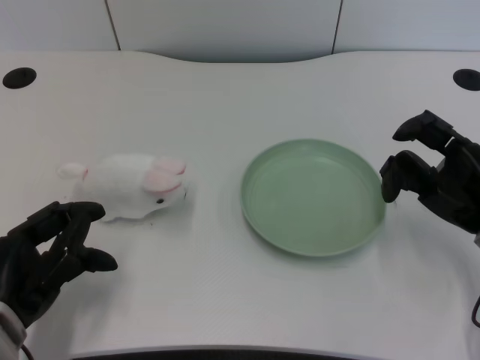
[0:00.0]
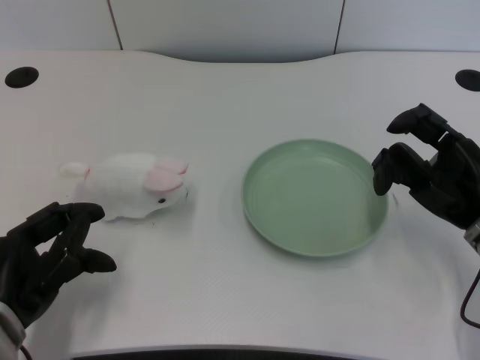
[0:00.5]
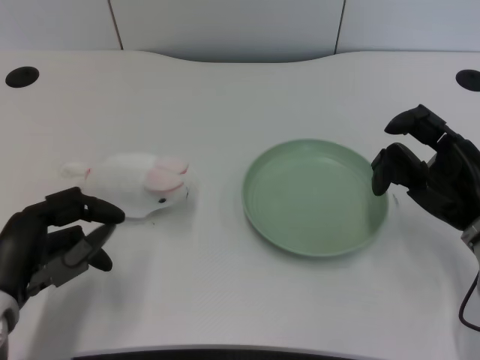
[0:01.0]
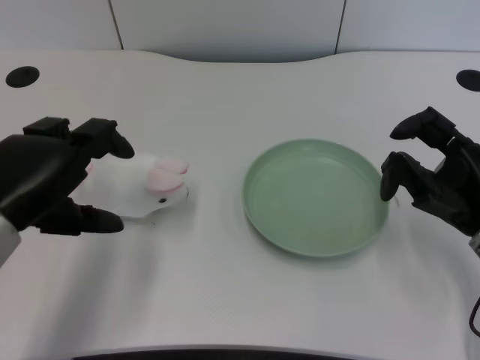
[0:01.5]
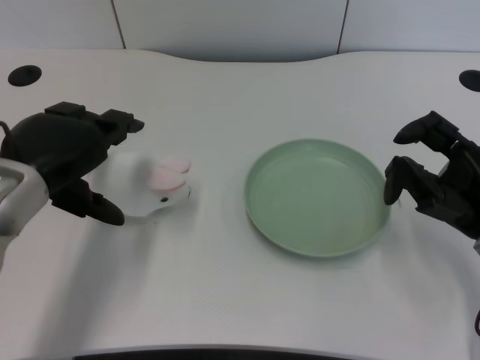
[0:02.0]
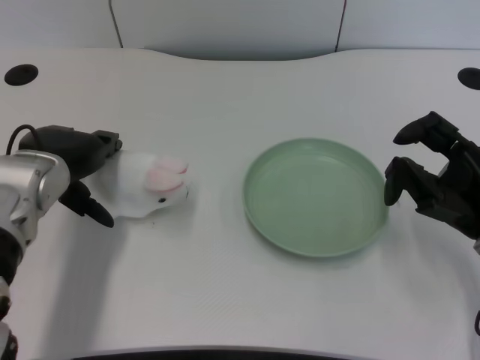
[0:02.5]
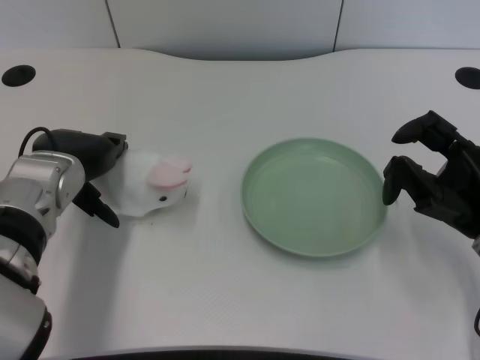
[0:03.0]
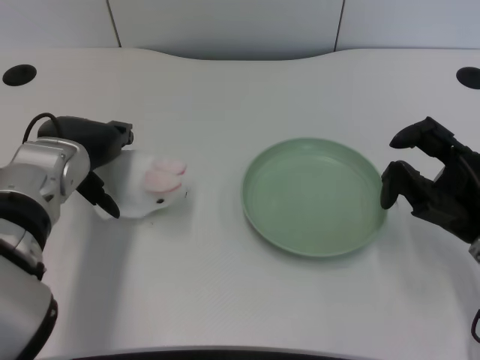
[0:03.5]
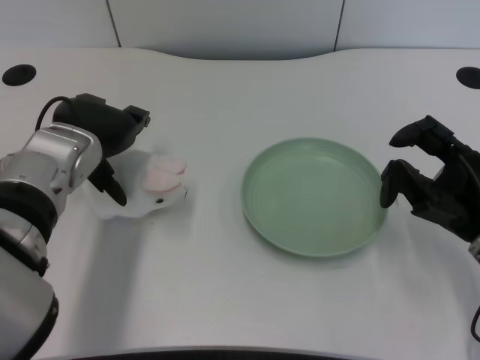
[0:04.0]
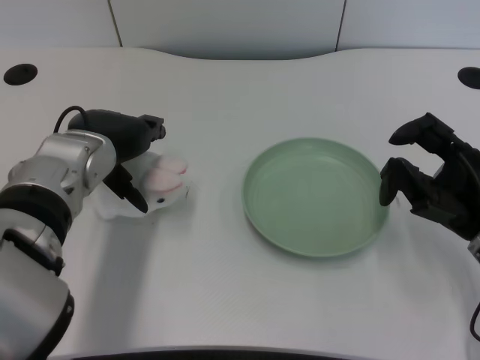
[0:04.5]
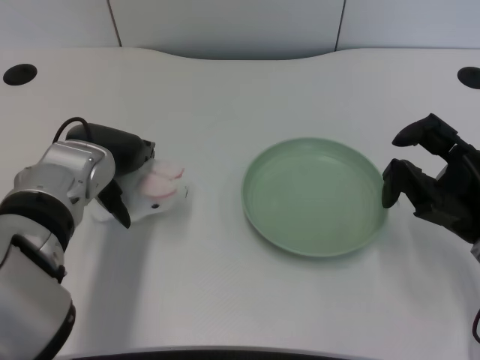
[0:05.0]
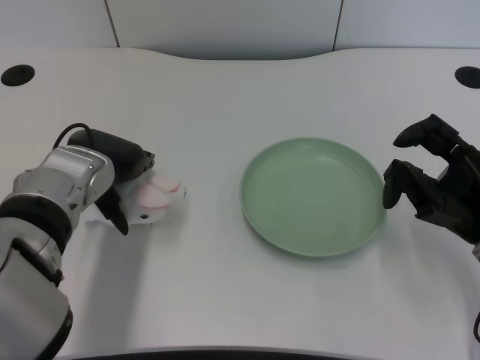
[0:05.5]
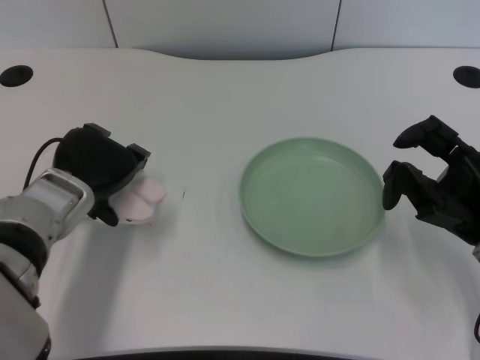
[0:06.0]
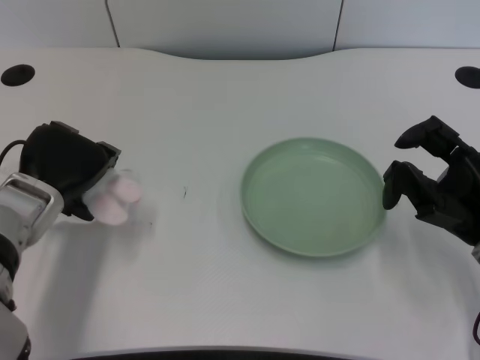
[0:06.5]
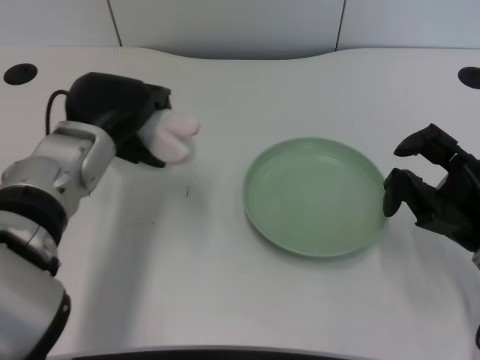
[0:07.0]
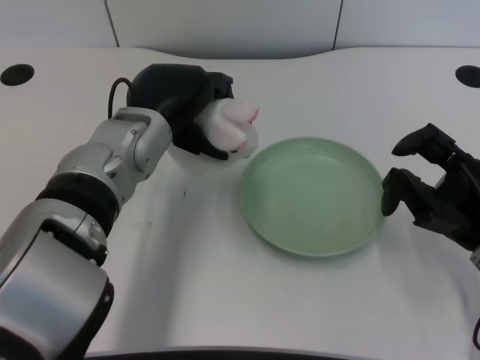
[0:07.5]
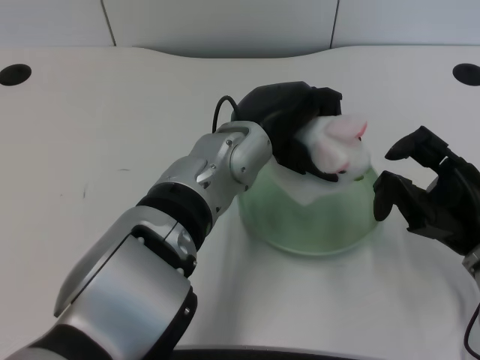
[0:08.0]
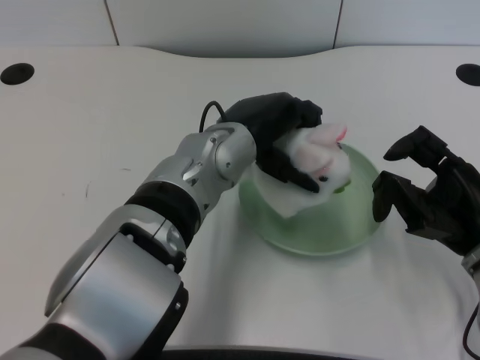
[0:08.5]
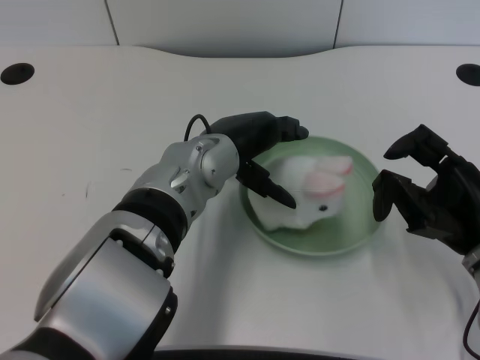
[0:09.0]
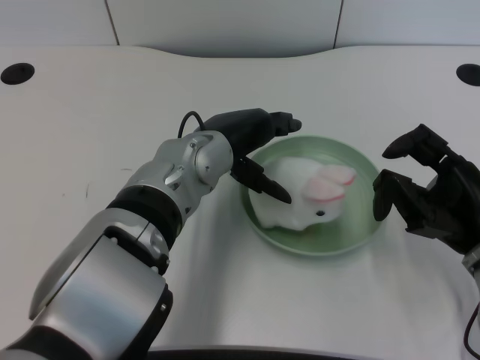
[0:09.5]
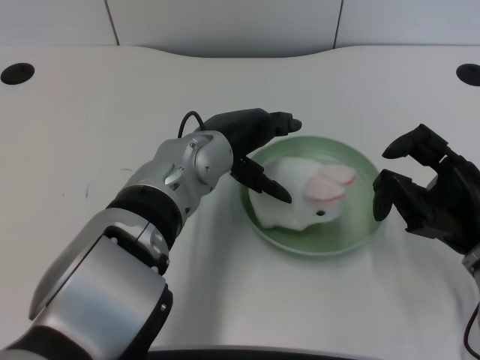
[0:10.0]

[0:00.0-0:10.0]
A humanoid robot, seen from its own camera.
Task of the whole recording: pick up the rabbit doll from the table and place it on the plate.
Step, 0:01.0 to 0:06.5: Grasp the rabbit doll with the left gripper.
Step, 0:07.0 to 0:09.0: Place the rabbit doll into the plate with the left gripper.
0:02.0 to 0:04.0: The left hand shifts about 5 cm forward.
0:04.0 to 0:06.0: The left hand changes place by roughly 5 cm.
0:06.0 to 0:08.0: The left hand heads to the right, covering approximately 15 cm.

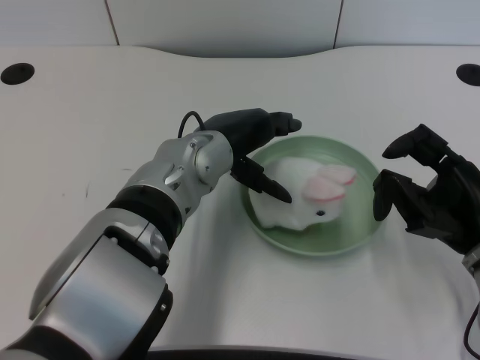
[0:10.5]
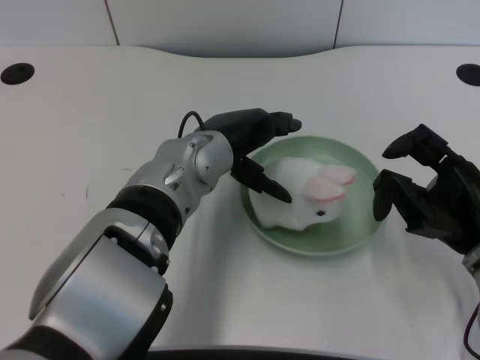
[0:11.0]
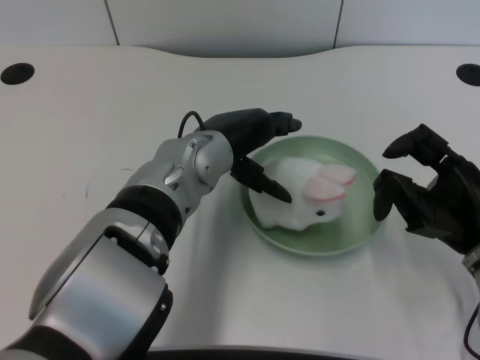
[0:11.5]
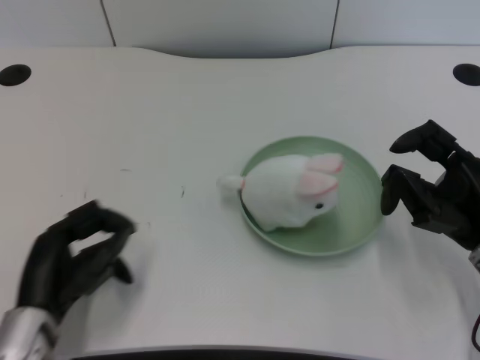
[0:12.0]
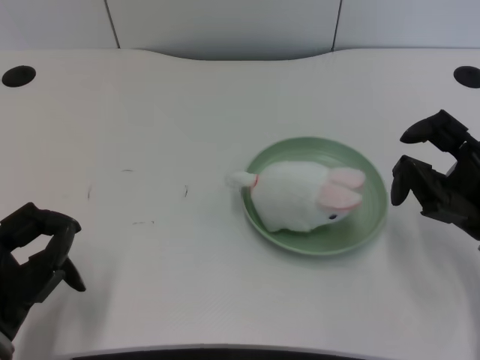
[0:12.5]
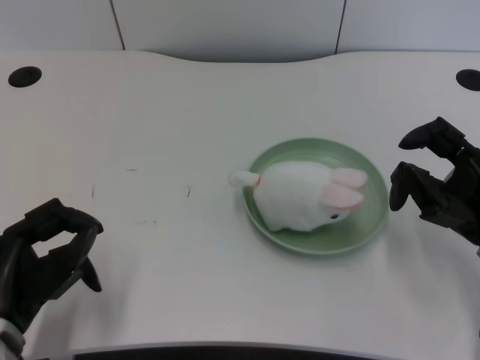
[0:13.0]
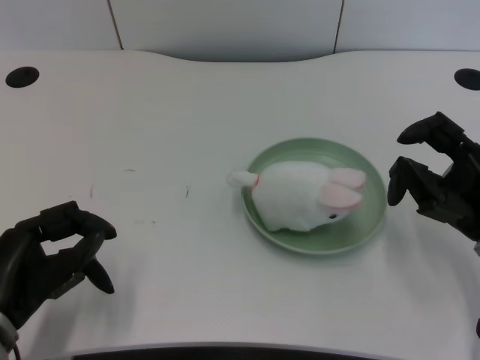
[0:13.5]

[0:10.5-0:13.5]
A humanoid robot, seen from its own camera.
Task of the whole recording: pick up the rabbit doll from the table and place it on the plate.
0:10.5 to 0:12.0: The left hand travels to the left, backward and downward by about 25 cm.
0:12.0 to 0:13.5: The left hand changes place by some 5 cm.

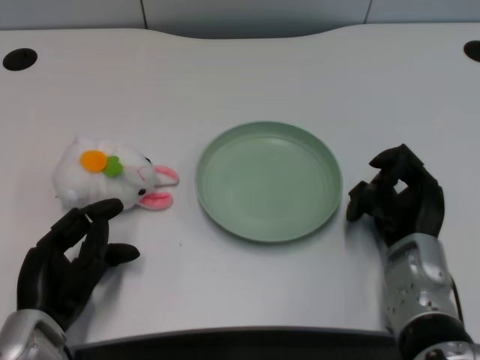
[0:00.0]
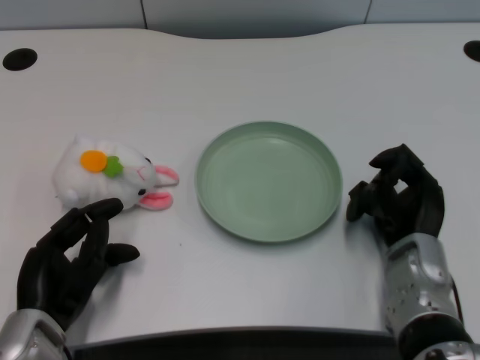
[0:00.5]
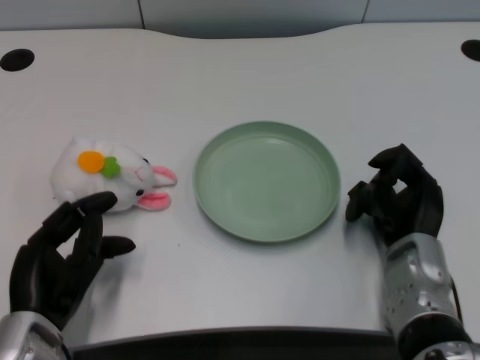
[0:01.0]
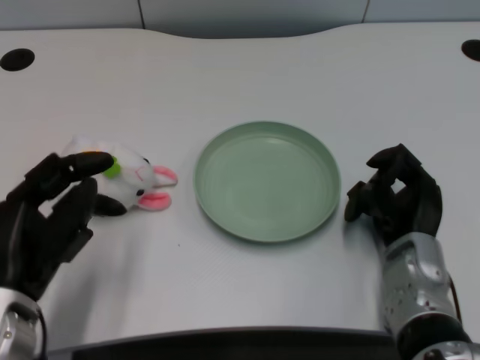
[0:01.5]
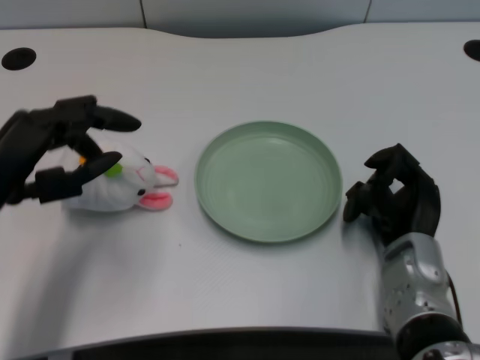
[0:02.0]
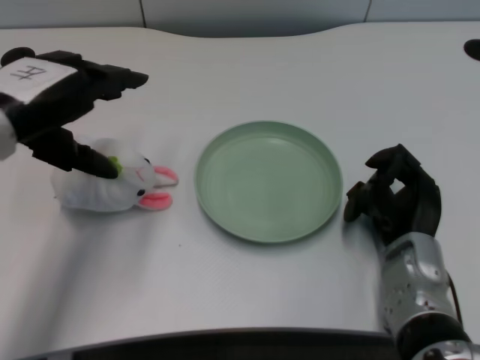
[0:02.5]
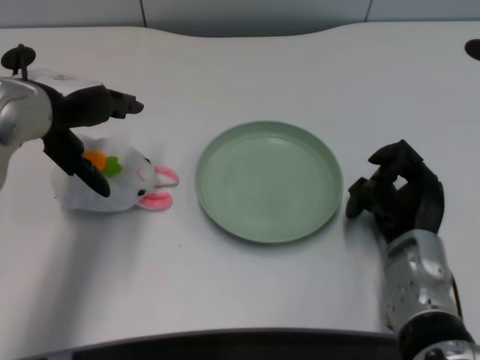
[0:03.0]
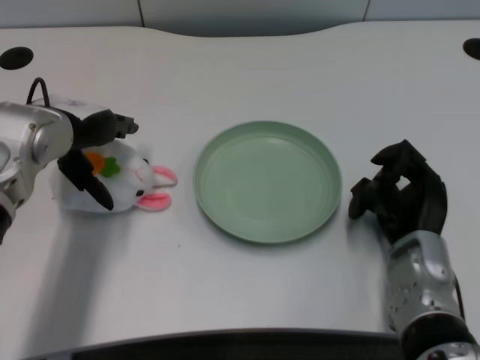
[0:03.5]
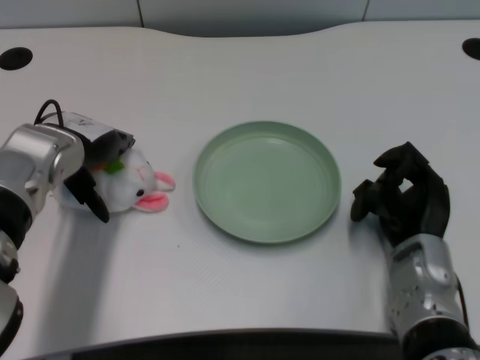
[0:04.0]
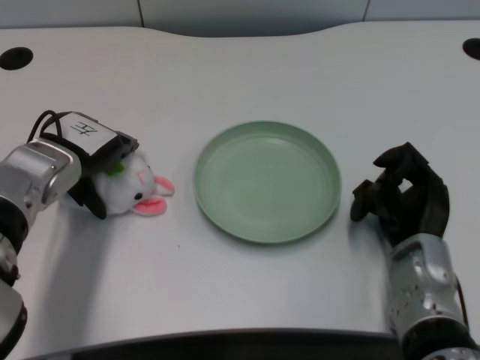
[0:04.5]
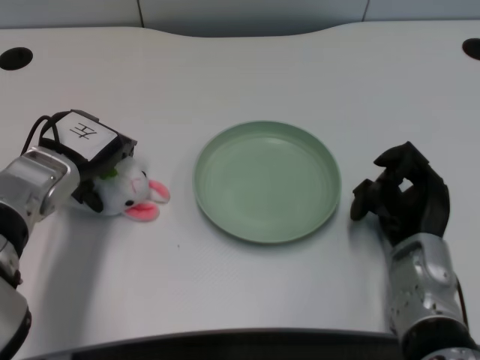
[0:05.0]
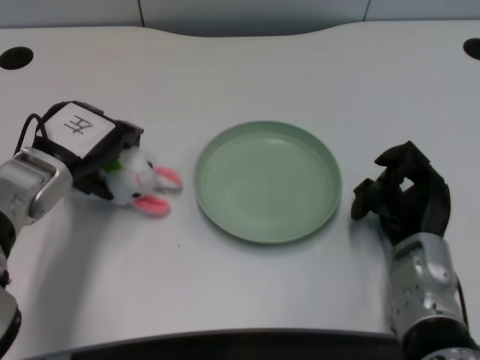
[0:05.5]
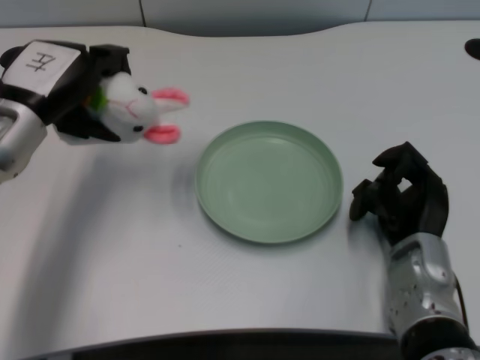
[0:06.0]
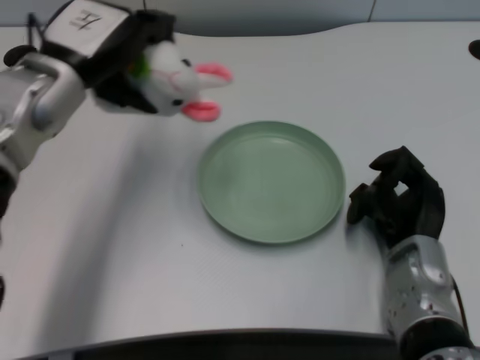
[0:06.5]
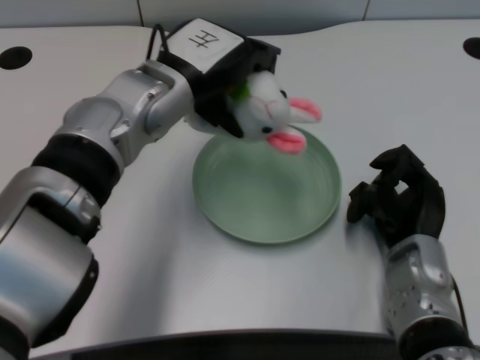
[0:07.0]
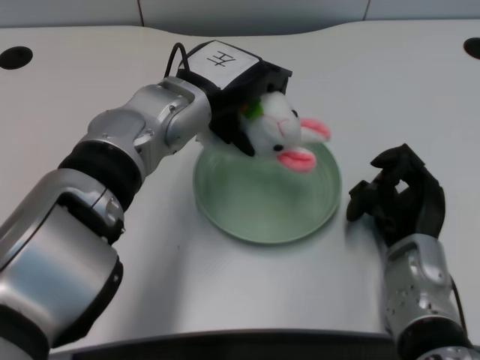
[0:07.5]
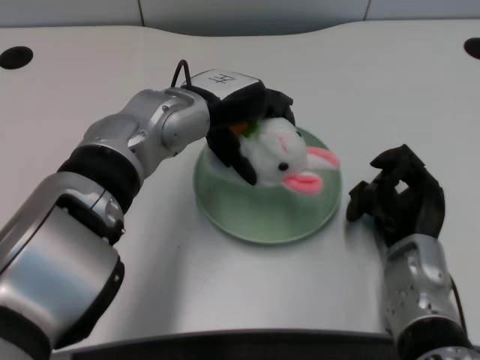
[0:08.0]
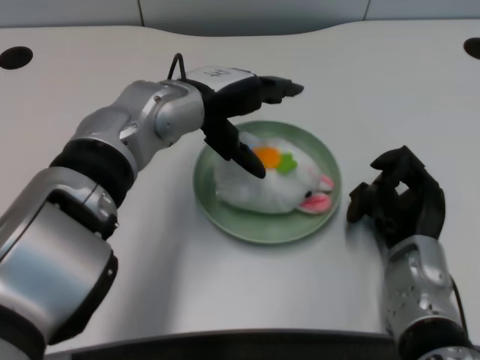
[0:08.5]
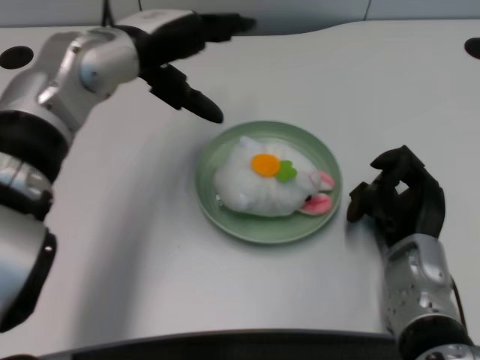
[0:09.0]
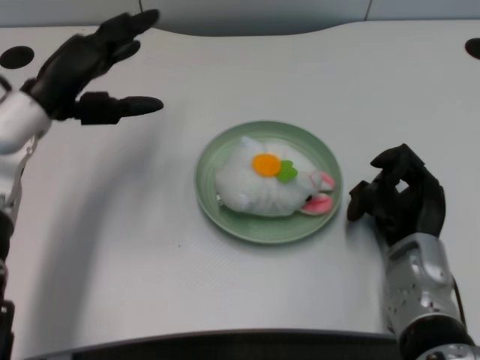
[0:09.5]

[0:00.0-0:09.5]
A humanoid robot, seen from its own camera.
Task of the whole recording: pick up the rabbit doll from the table and place it on the plate.
Step, 0:01.0 to 0:05.5: Grasp the rabbit doll with the left gripper.
Step, 0:06.0 to 0:08.0: Place the rabbit doll into the plate with the left gripper.
0:02.0 to 0:04.0: The left hand is displaced forward by roughly 10 cm.
0:05.5 to 0:07.5: The left hand shifts some 15 cm to the right and upward.
0:07.5 to 0:09.5: The left hand shifts about 15 cm to the left.

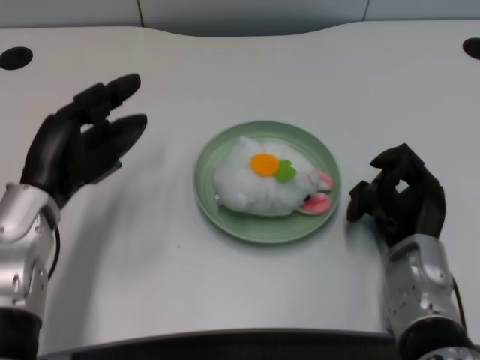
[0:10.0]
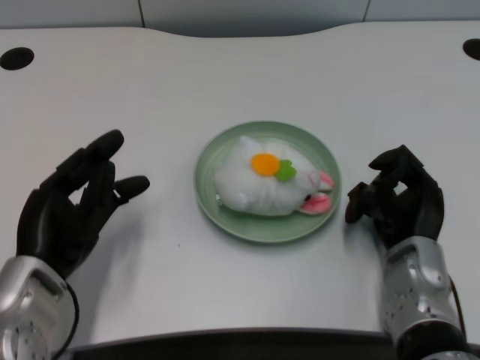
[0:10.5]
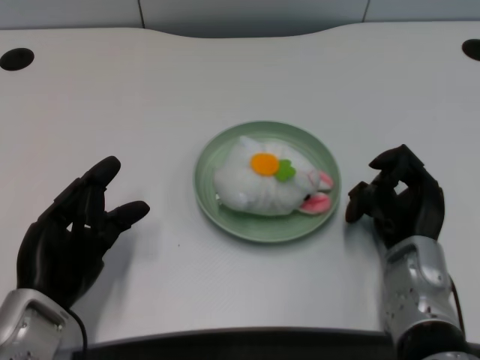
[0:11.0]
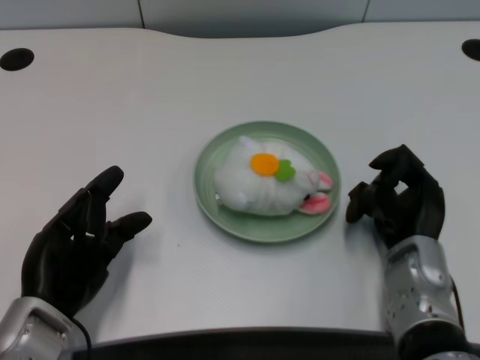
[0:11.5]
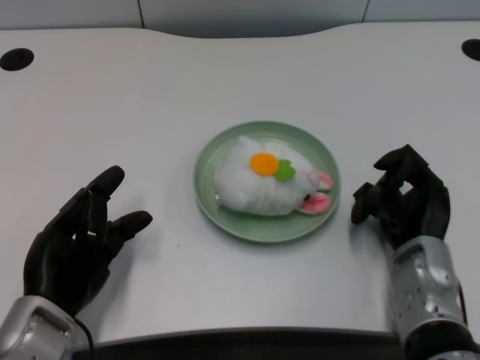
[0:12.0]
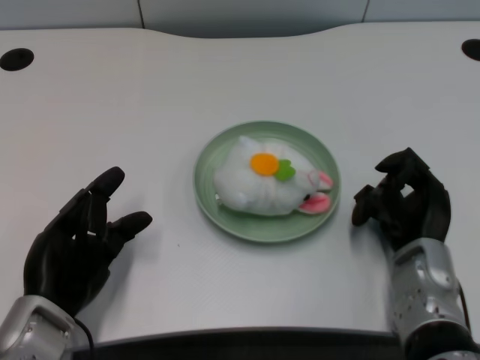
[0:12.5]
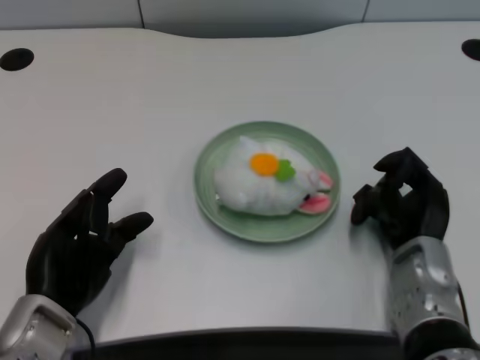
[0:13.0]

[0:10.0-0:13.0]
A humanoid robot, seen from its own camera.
Task of the whole recording: pick up the rabbit doll from the table and place it on the plate.
0:10.0 to 0:11.5: The left hand heads backward and downward, covering roughly 10 cm.
0:11.5 to 0:13.0: The two hands keep their place.
